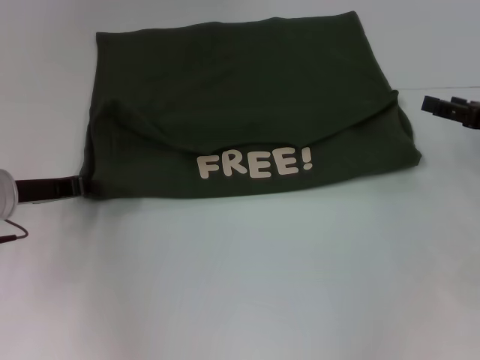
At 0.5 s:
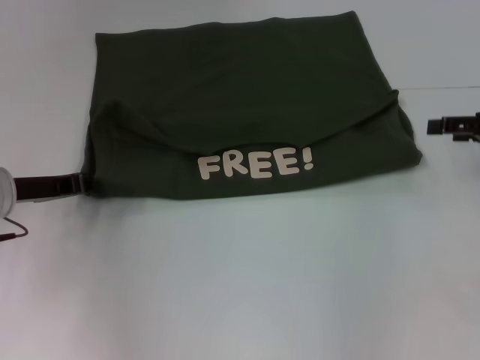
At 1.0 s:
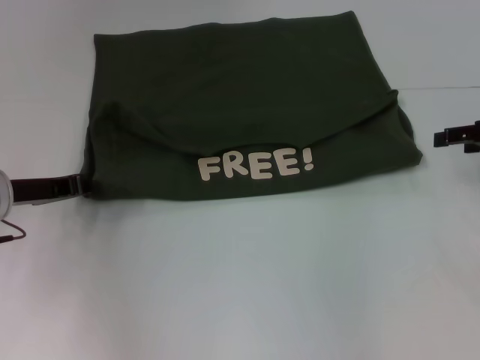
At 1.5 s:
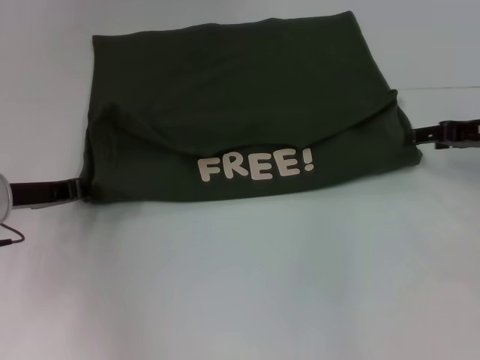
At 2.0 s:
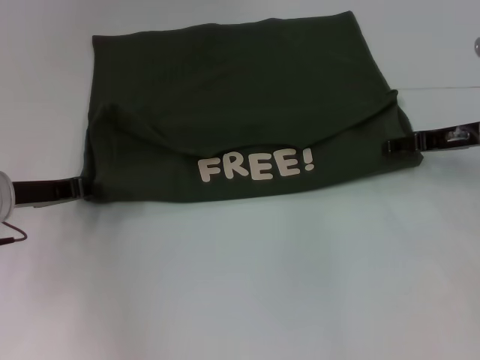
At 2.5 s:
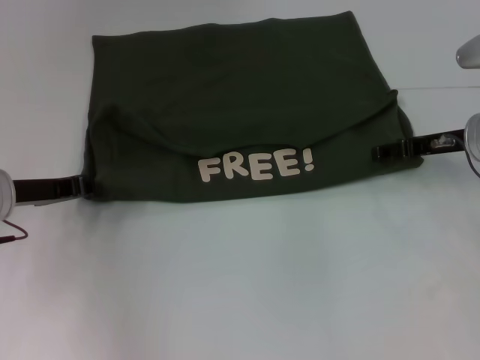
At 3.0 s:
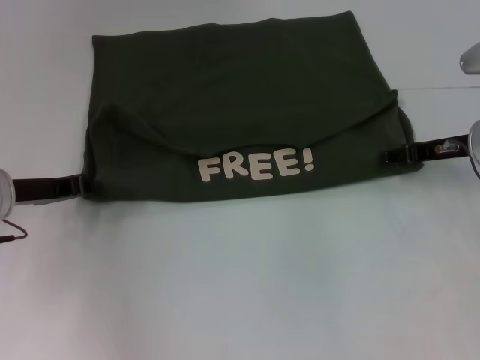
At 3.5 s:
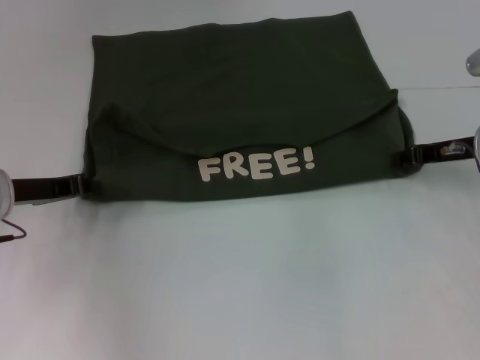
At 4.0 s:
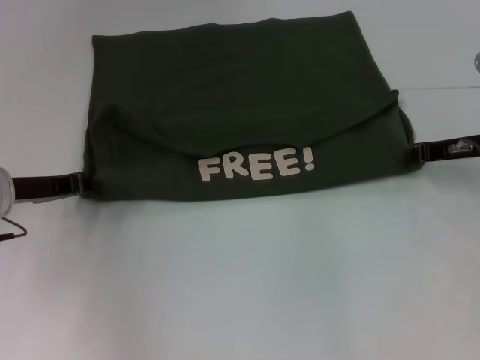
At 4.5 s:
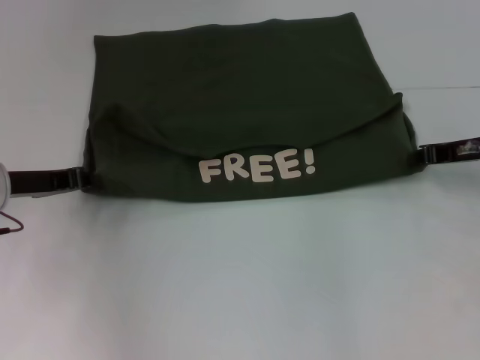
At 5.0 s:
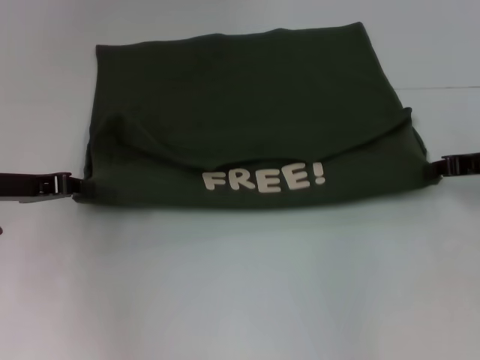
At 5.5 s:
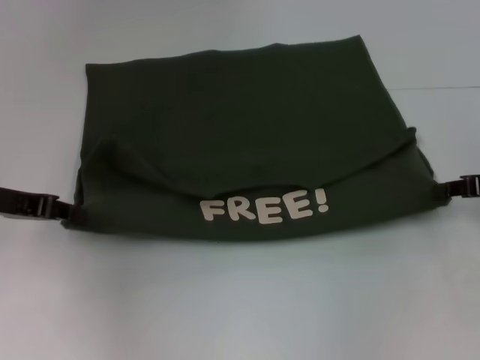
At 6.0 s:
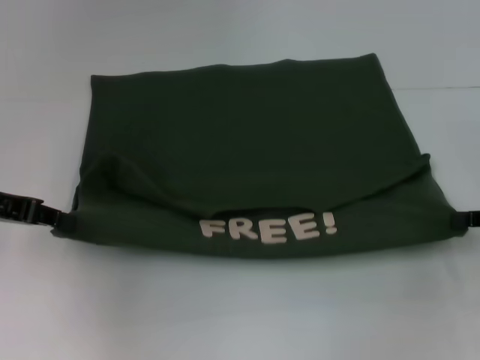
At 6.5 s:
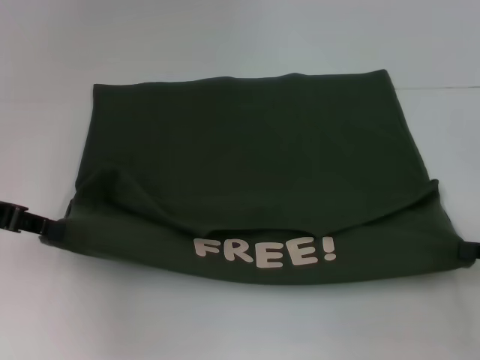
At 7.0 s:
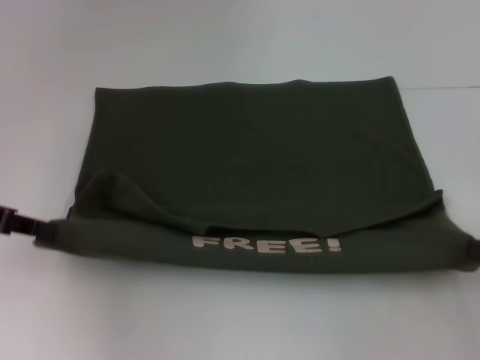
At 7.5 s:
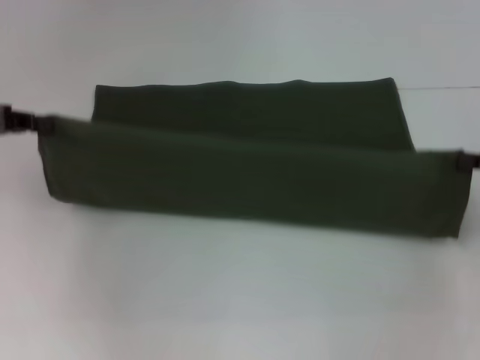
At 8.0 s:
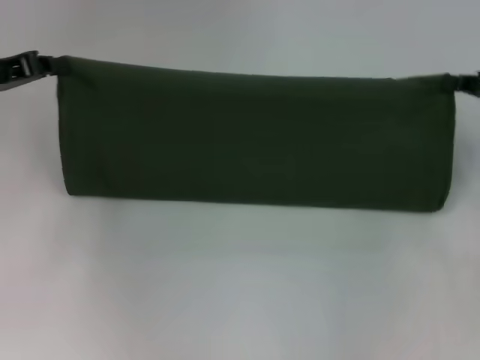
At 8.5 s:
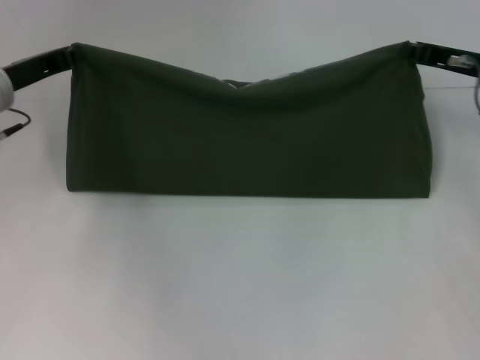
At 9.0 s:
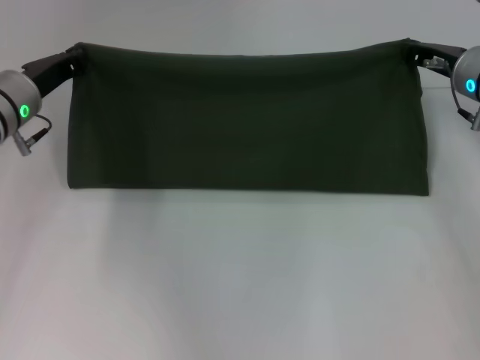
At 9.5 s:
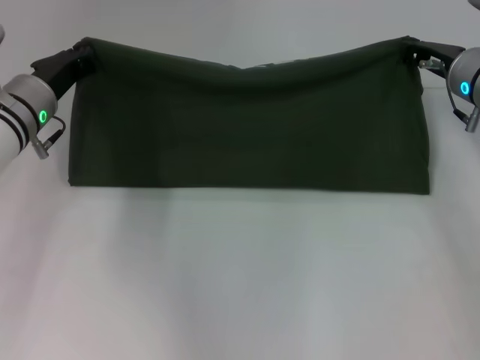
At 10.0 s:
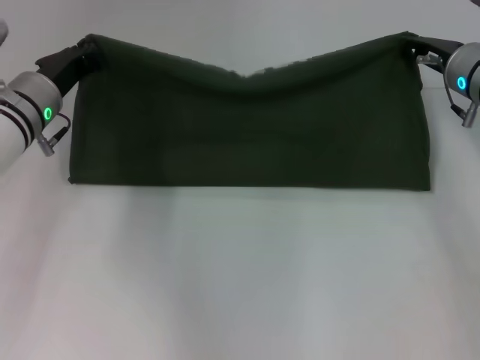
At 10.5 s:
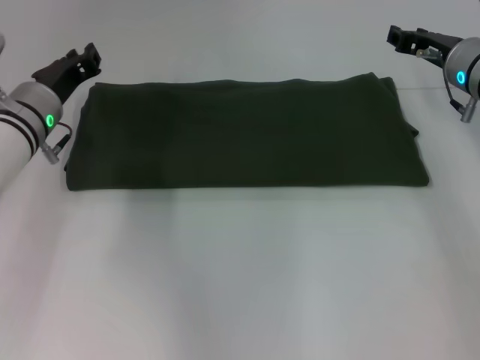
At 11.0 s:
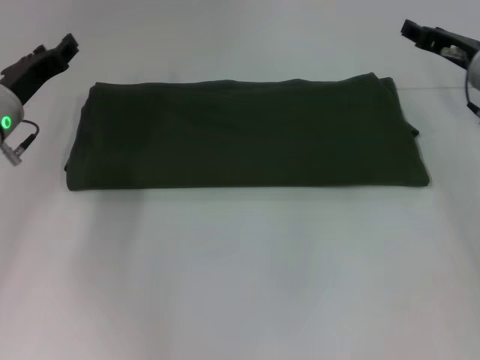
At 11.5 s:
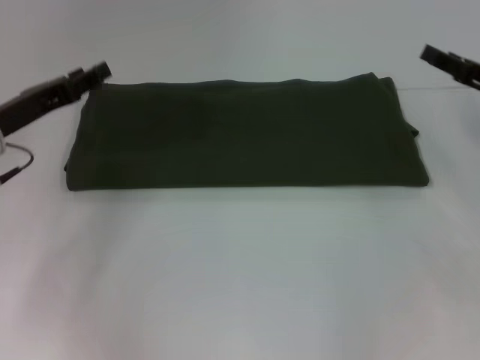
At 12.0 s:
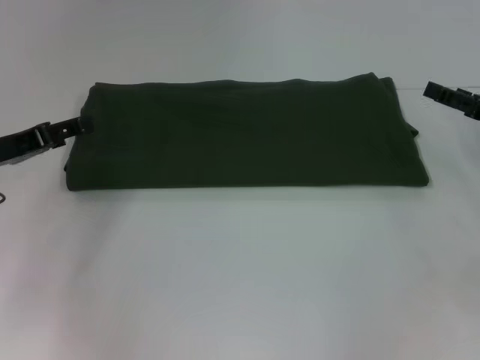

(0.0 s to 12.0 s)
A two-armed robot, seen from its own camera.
Step, 0.0 s - 6.5 s: Pull the clothes with your left hand.
Step, 0.0 s - 6.5 s: Pull the clothes with your right hand.
Step, 7.0 s - 10.5 s: Fold the clothes with your left hand.
Step, 7.0 s - 10.5 s: Fold the clothes with your right hand.
0.0 s - 2.0 s: The right gripper moves to the left, some 5 cm.
2.0 s - 4.0 s: The right gripper closes.
4.0 s - 6.0 s: The right gripper is displaced backward and to the right by about 15 cm, while the left gripper travels upward by approximately 5 cm.
6.0 s - 8.0 s: The two grippers go about 5 cm forward.
8.0 s - 10.0 s: The left gripper heads to the right and downward, covering approximately 10 cm; the right gripper is displaced to the left and forward by about 15 cm.
10.0 s - 12.0 s: The right gripper moves to the right and backward, some 15 cm, and opens its fingers; the left gripper heads to the left and backward, covering about 10 cm, and opens.

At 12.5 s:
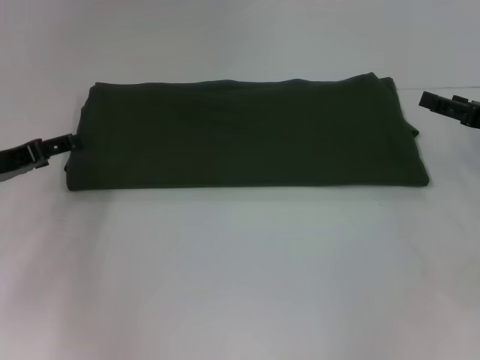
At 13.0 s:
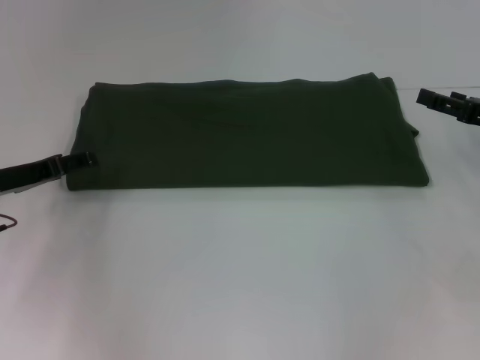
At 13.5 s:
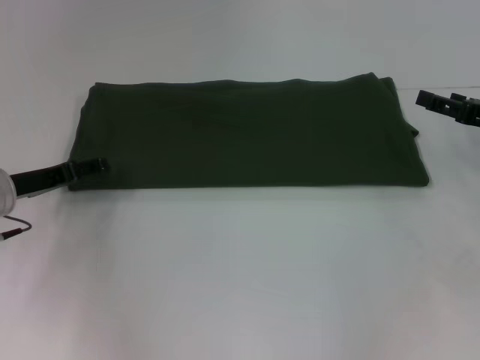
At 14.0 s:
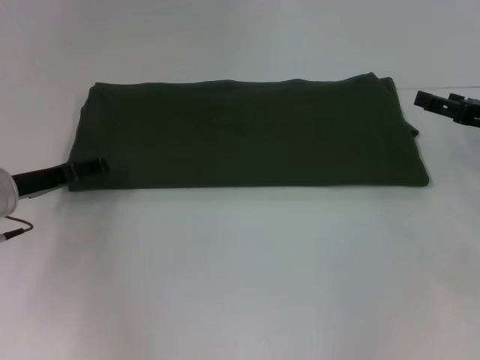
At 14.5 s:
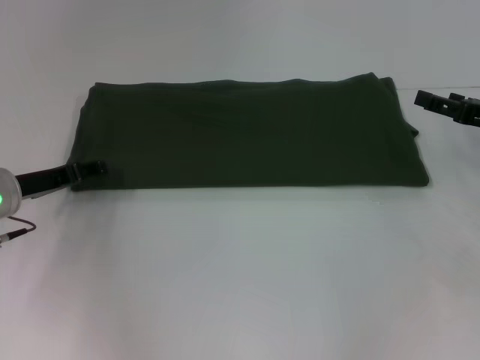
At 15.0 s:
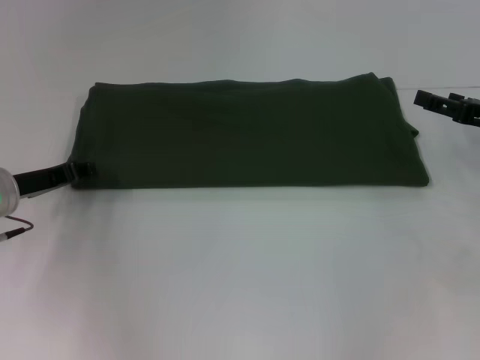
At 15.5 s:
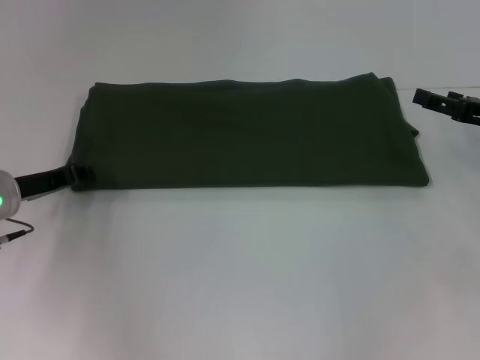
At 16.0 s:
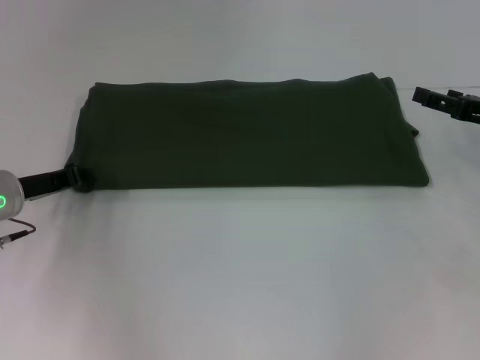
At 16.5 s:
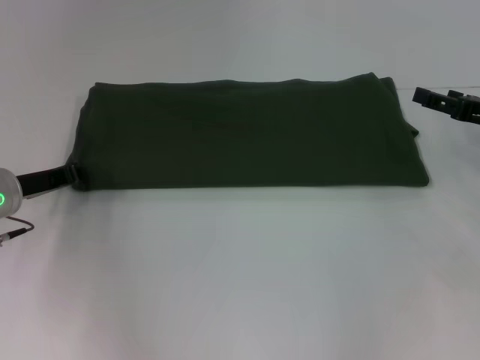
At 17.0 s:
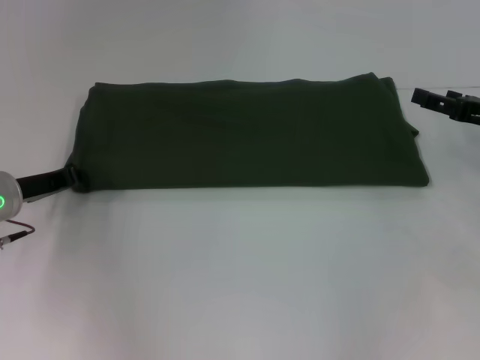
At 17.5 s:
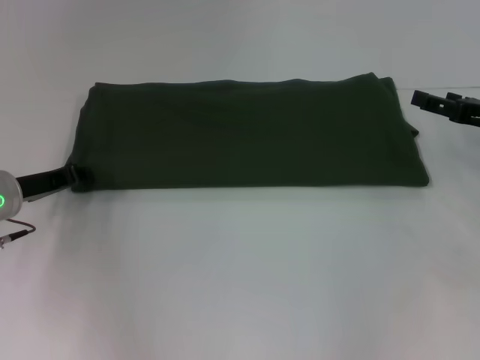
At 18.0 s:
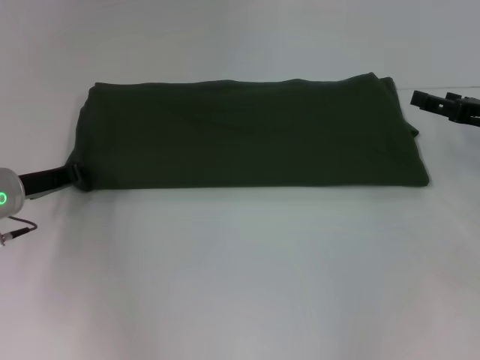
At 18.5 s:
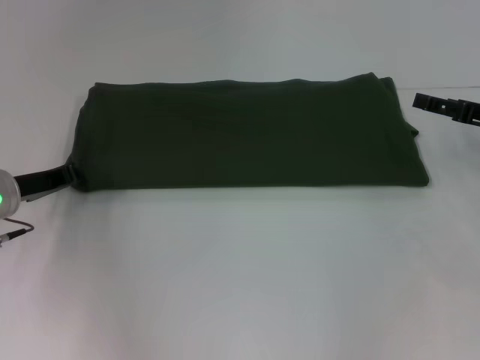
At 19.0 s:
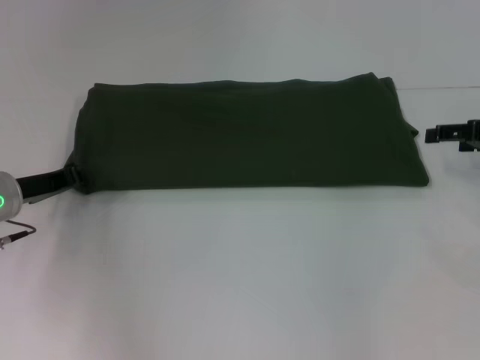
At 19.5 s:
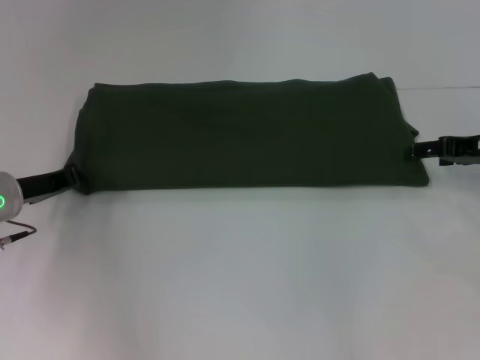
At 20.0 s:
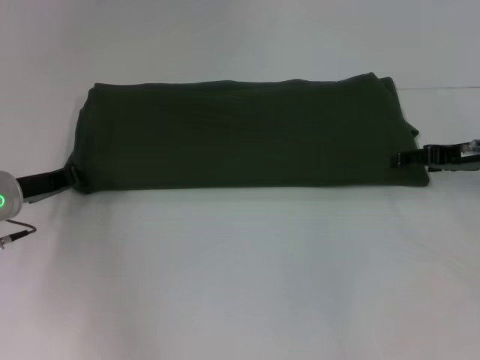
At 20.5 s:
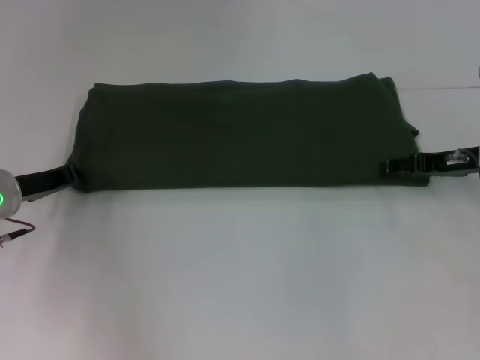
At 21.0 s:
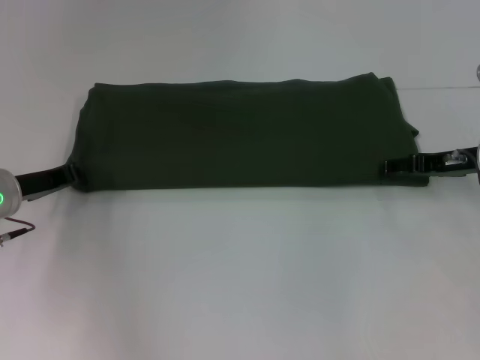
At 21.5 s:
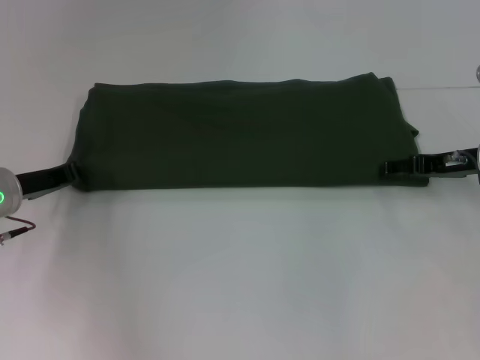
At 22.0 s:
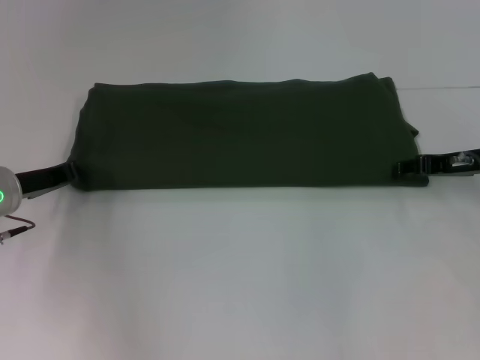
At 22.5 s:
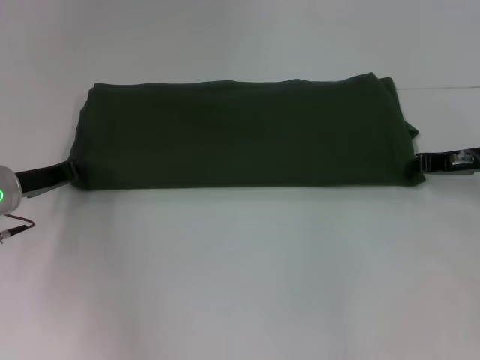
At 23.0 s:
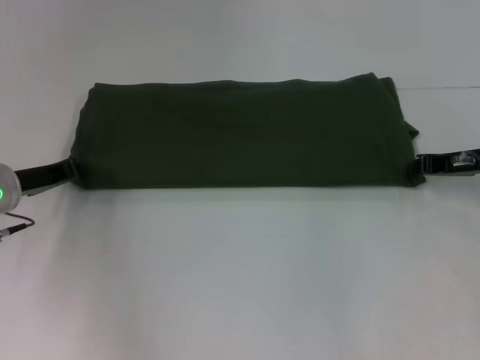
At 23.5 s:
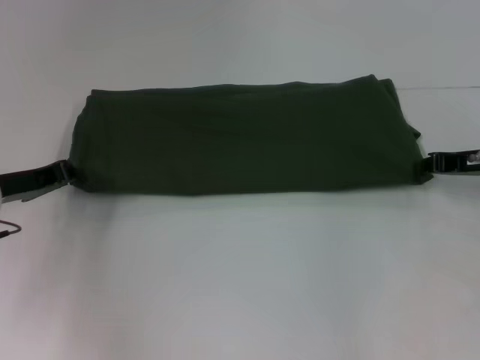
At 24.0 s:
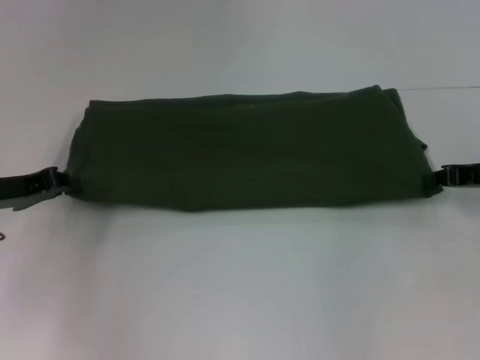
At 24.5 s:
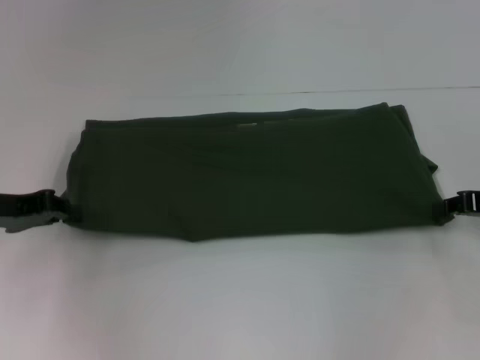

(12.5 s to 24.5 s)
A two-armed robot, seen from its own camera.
12.5 s - 14.5 s: The left gripper moves about 5 cm.
18.5 s - 20.5 s: The right gripper moves roughly 5 cm.
22.5 s - 24.5 s: The right gripper moves backward, about 5 cm. Meanwhile the left gripper shifts by some 5 cm.

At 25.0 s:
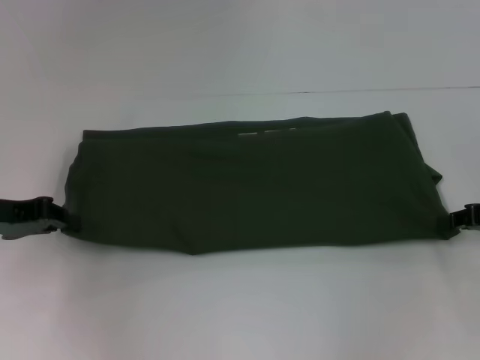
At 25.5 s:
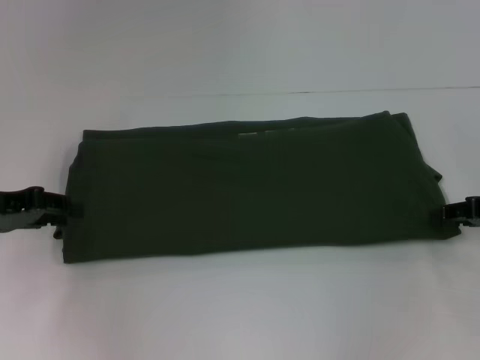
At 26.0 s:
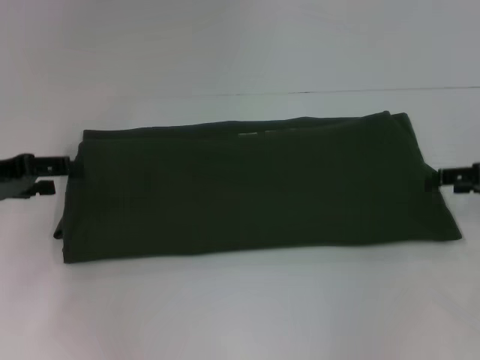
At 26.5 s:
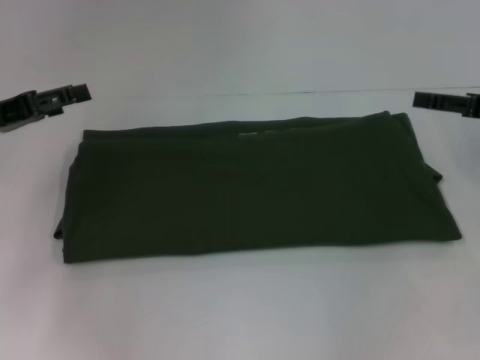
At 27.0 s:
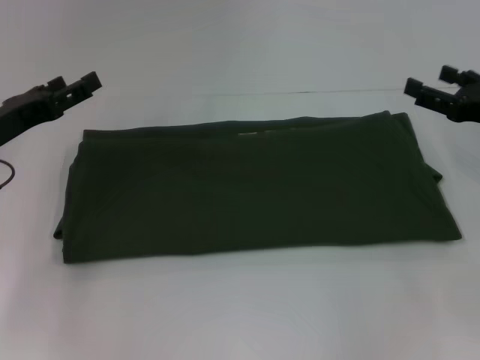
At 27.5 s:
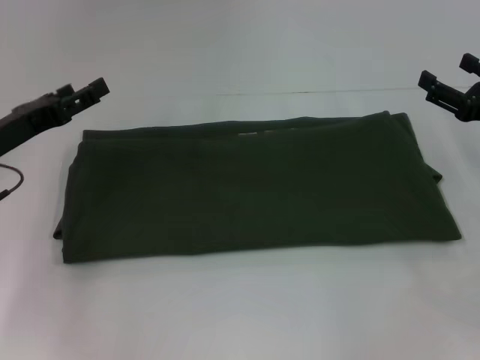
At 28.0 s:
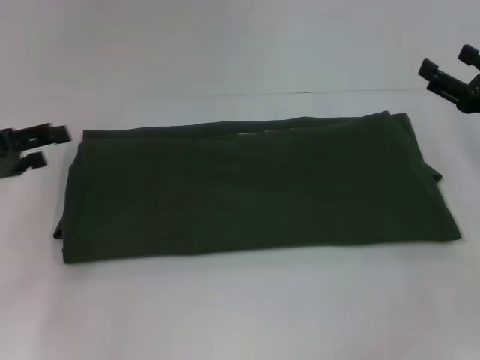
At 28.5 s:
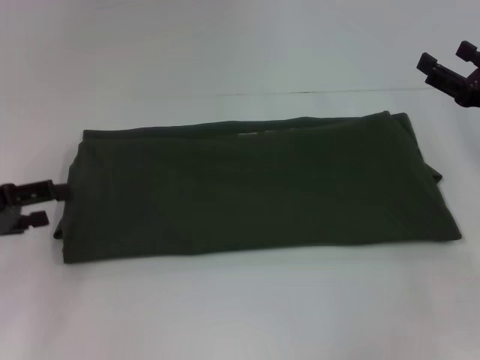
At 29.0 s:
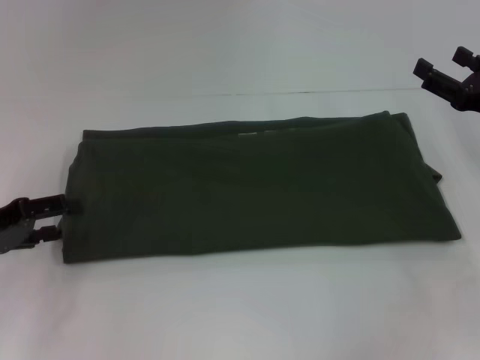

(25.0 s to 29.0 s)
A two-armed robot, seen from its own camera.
25.0 s - 27.0 s: The left gripper opens up. Meanwhile the right gripper opens its fingers.
27.0 s - 29.0 s: The left gripper moves about 5 cm.
